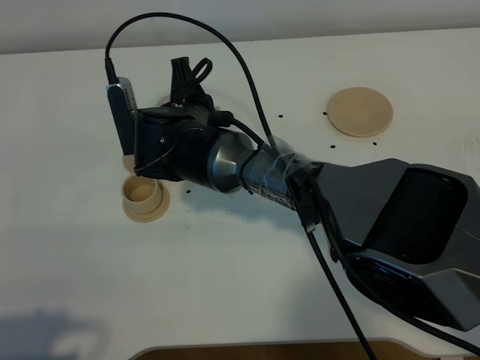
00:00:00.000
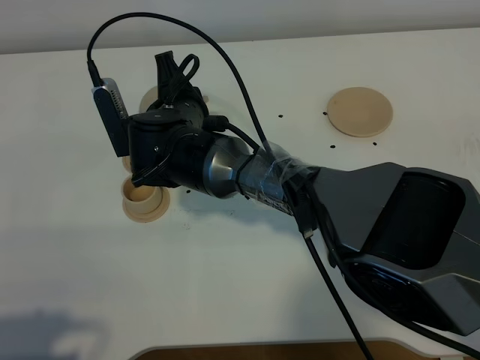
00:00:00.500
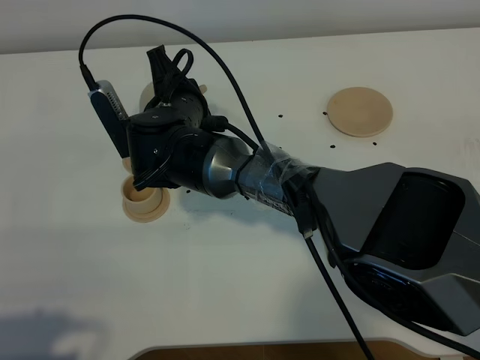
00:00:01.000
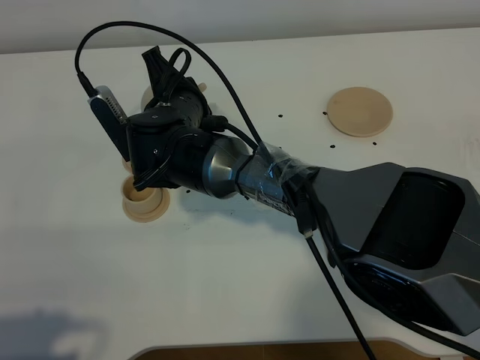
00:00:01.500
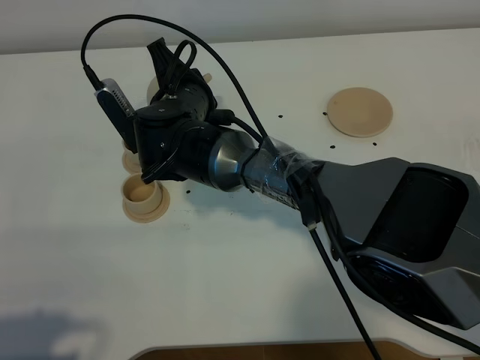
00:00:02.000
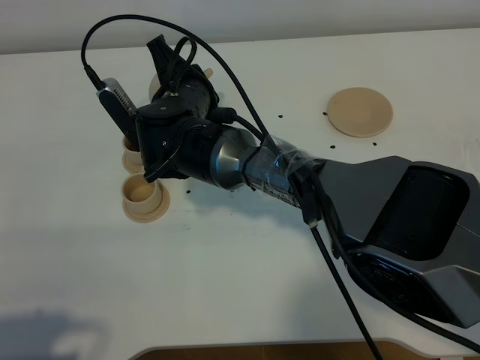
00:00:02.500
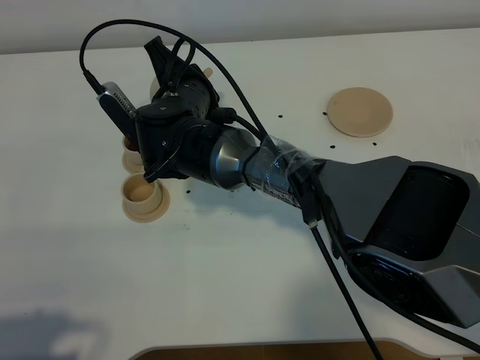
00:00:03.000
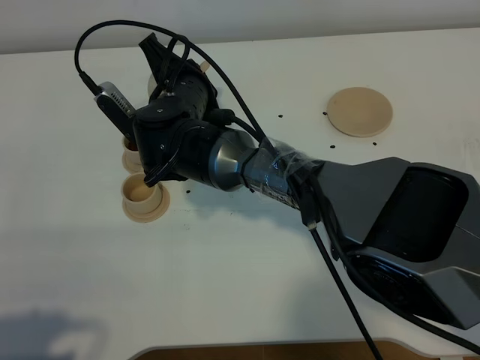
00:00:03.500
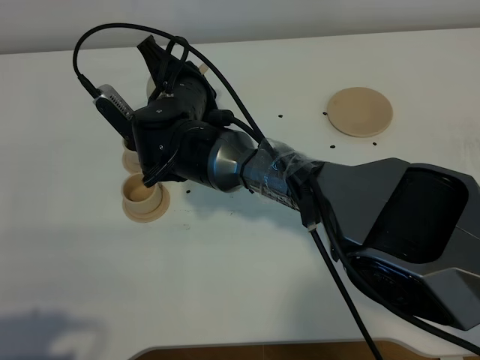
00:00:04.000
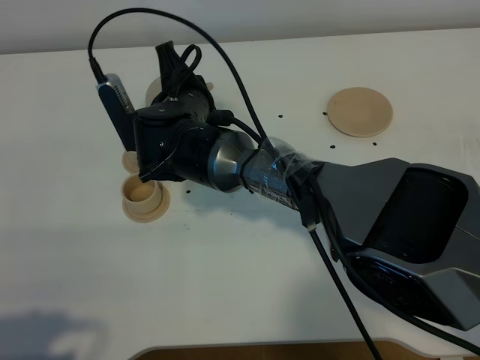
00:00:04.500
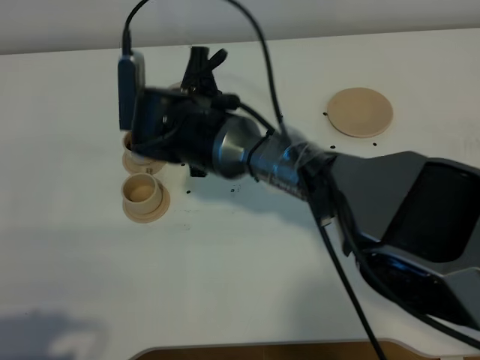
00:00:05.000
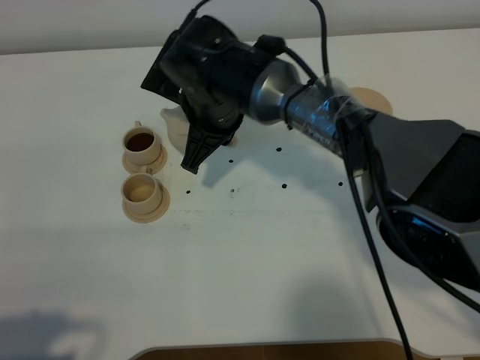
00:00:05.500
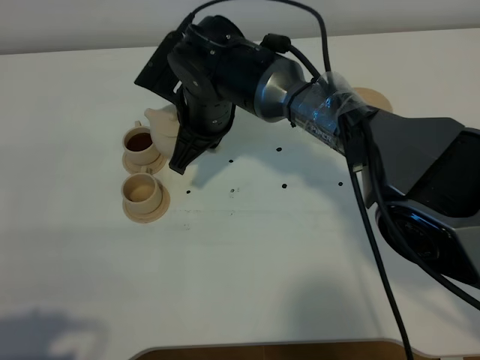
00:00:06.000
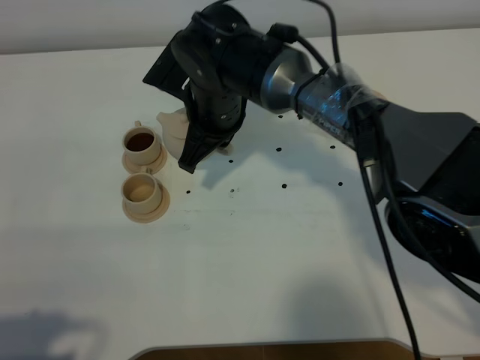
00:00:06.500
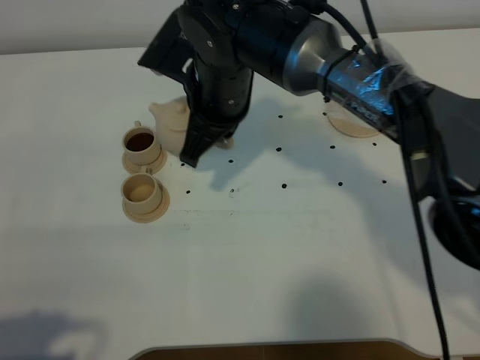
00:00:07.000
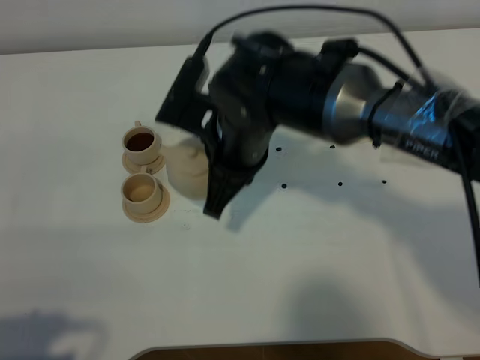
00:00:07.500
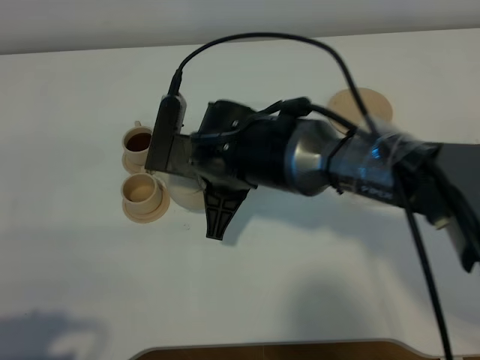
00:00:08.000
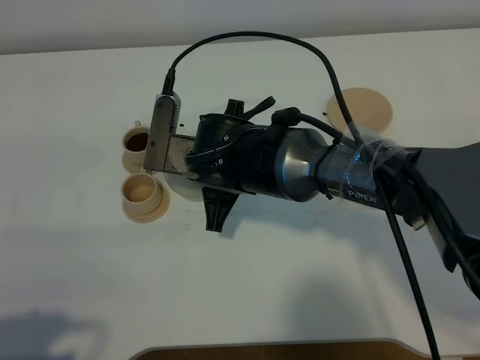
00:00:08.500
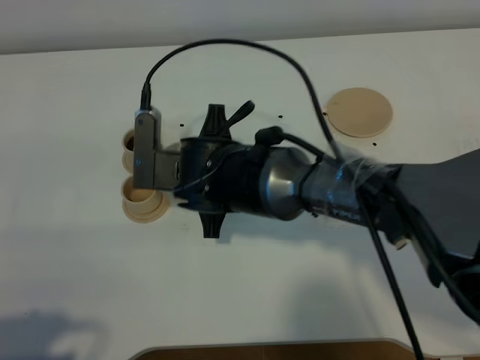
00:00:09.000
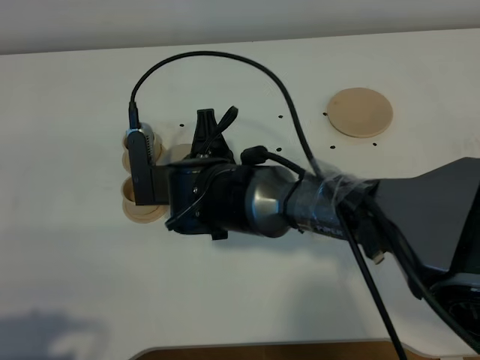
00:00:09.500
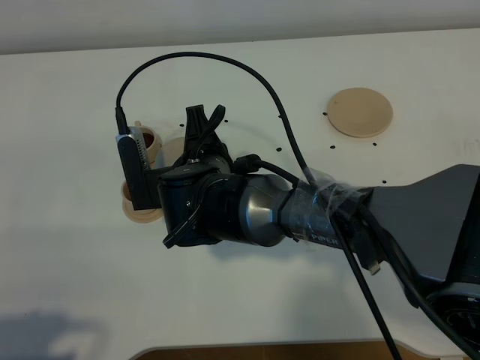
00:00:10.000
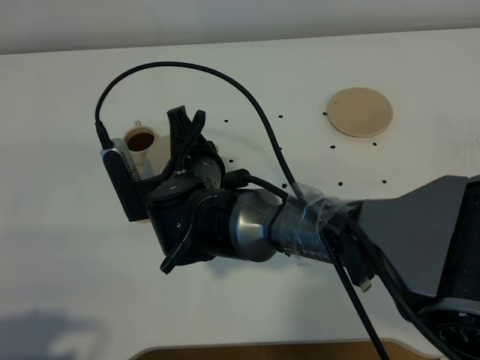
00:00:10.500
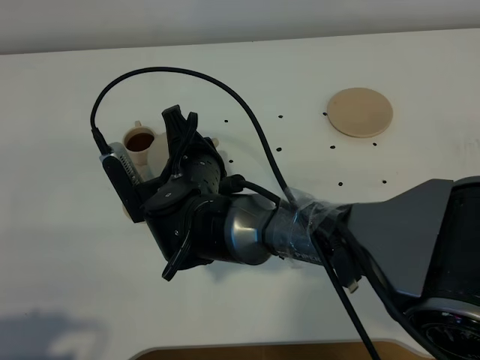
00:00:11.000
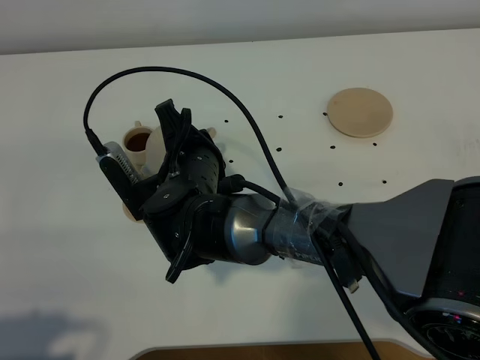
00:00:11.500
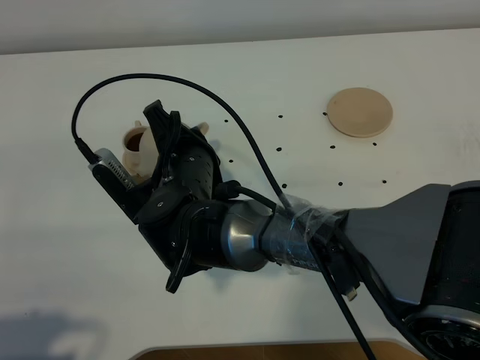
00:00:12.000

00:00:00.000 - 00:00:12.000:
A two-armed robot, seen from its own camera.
Task of the whole recording: grasp the brown teapot and pour the tea into the two brown teacups one by one, put the brown teapot back in its original place.
00:00:00.000 - 00:00:02.000: The grippers move only a little.
00:00:02.000 - 00:00:04.000: The grippers stay close to where they were, moving slightly.
00:00:06.000 - 00:00:08.000: The right gripper moves backward, roughly 10 cm.

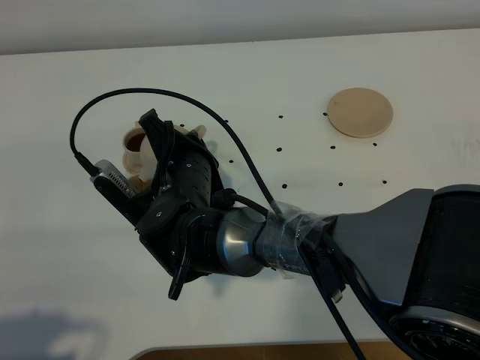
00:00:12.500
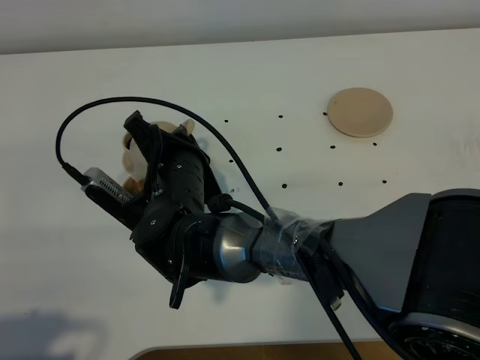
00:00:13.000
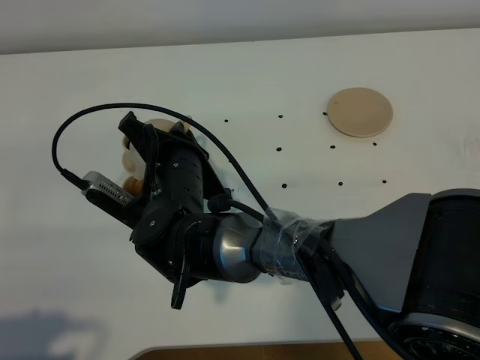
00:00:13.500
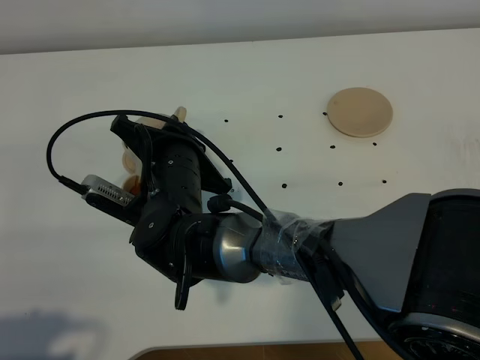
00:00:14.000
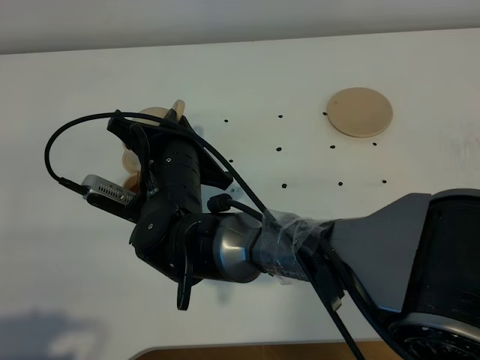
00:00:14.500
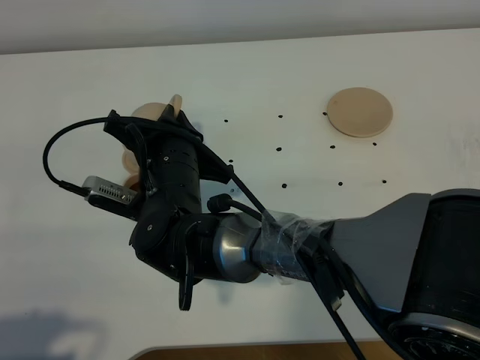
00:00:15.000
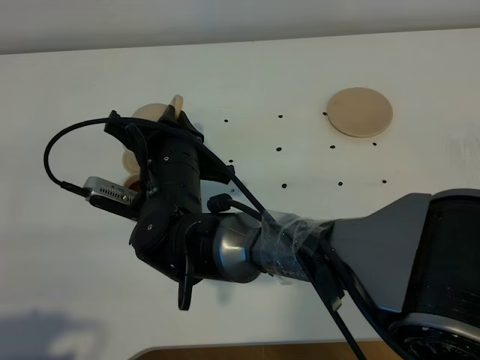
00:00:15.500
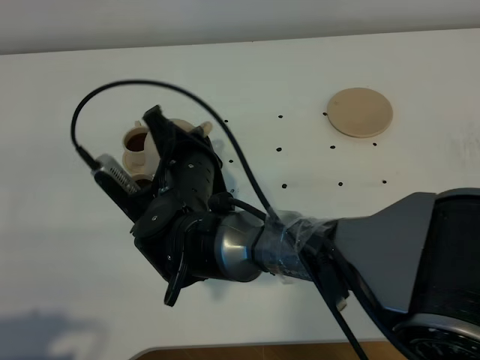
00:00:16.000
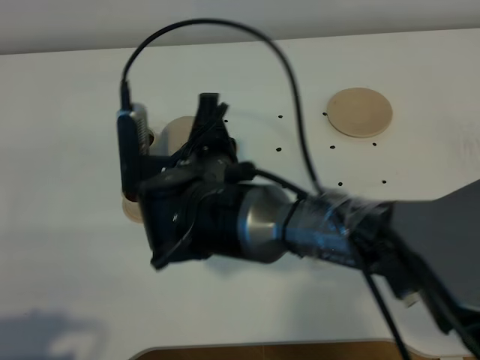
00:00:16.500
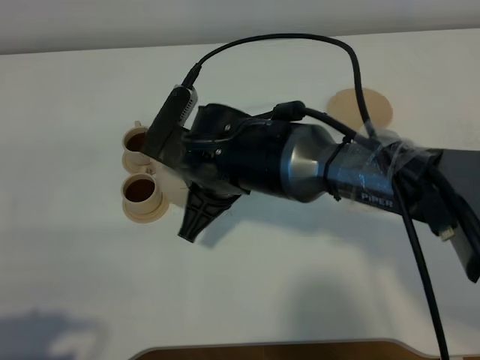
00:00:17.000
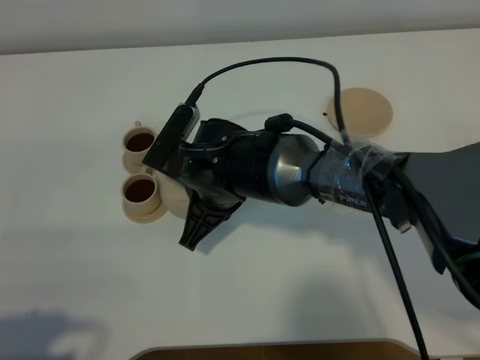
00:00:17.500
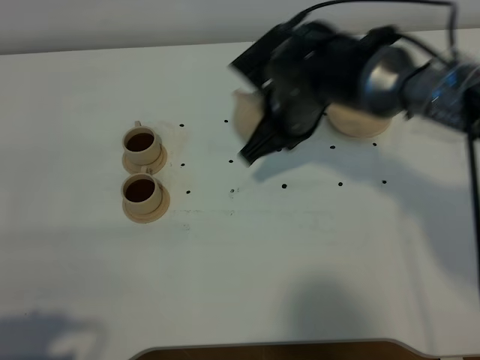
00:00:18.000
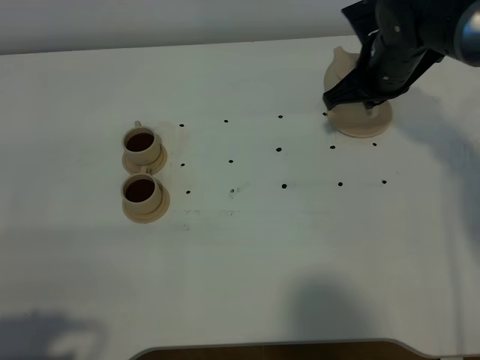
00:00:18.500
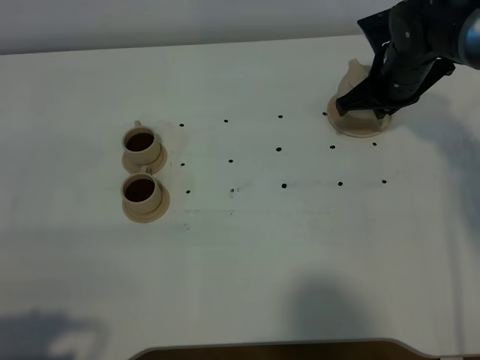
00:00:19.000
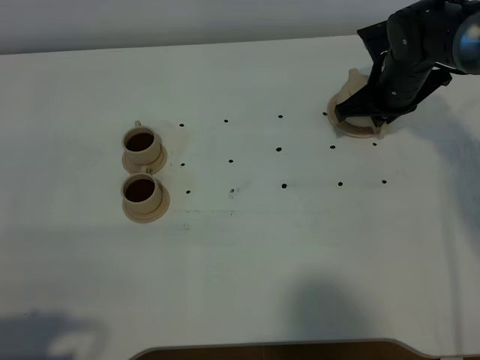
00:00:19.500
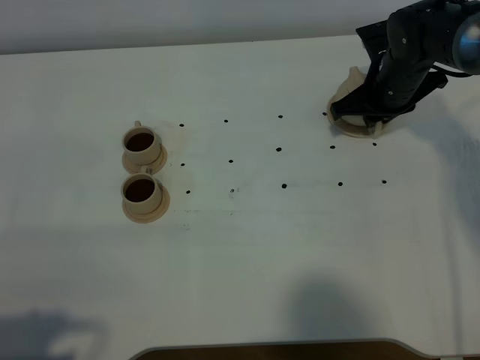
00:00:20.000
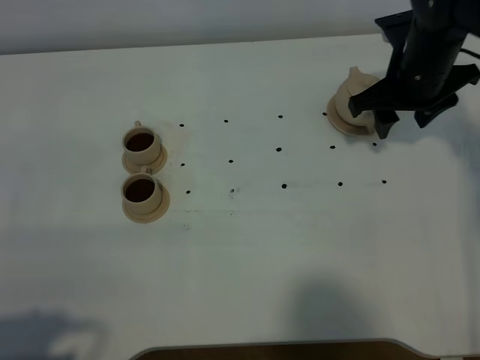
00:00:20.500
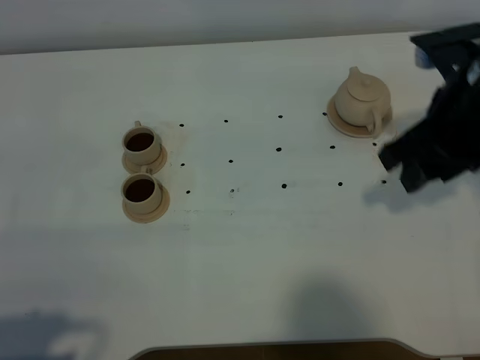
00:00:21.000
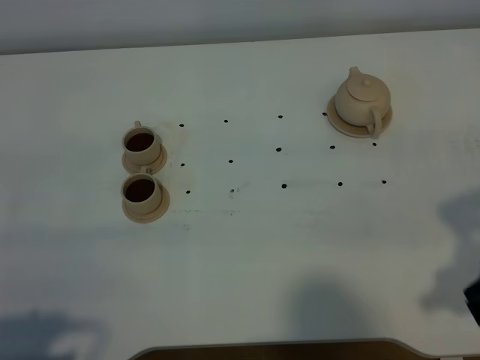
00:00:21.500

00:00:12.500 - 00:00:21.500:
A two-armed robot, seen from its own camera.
Task of the whole recording: grasp the brown teapot and pour the tea into the two brown teacups one by one, put the brown teapot back in its original place.
Step, 00:00:12.500 - 00:00:16.000: Pour tea into the teacup with the right gripper.
00:00:14.500 - 00:00:17.000: The right gripper moves approximately 5 cm.
00:00:17.000 - 00:00:19.500: The right gripper is displaced to the right and forward by about 30 cm.
00:00:19.500 - 00:00:21.500: The right gripper shifts roughly 35 cm backward and upward, and opens its fingers.
